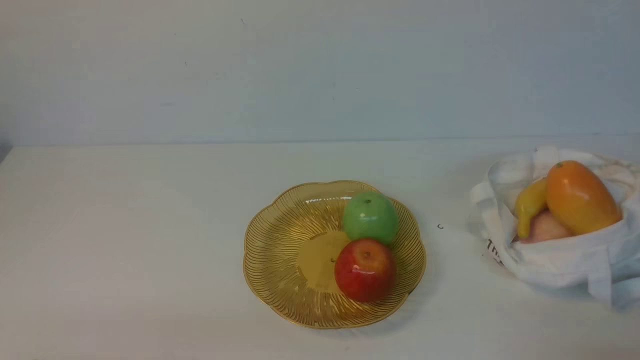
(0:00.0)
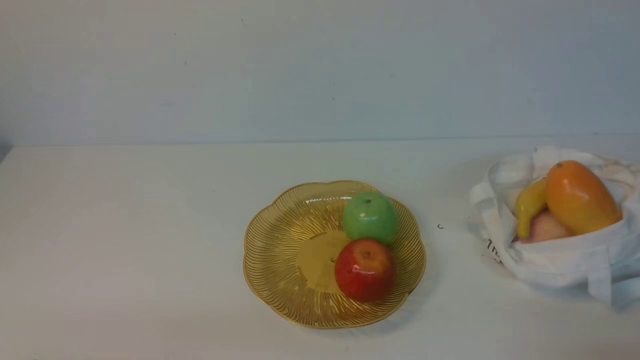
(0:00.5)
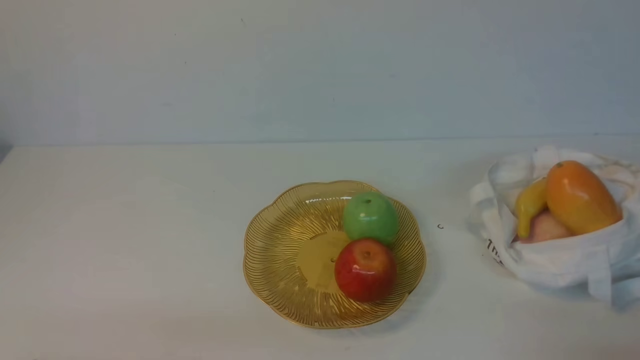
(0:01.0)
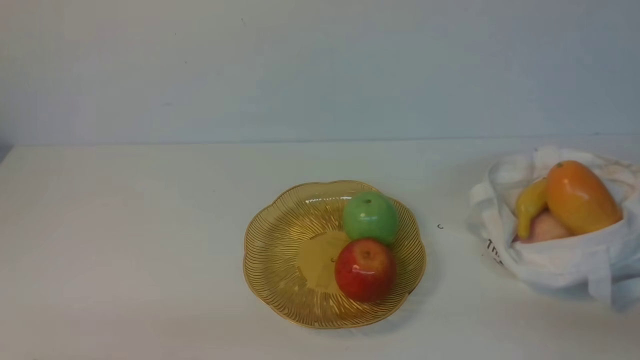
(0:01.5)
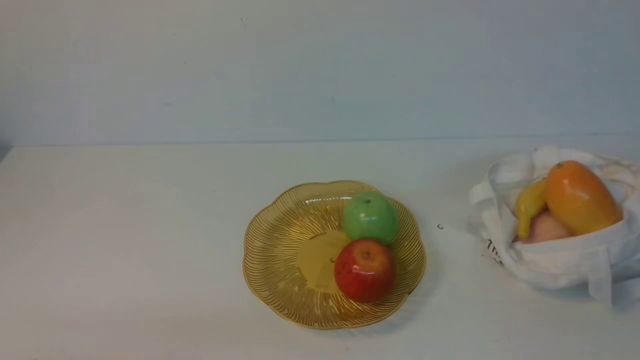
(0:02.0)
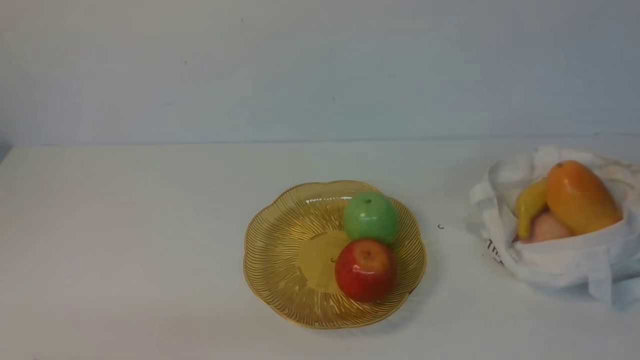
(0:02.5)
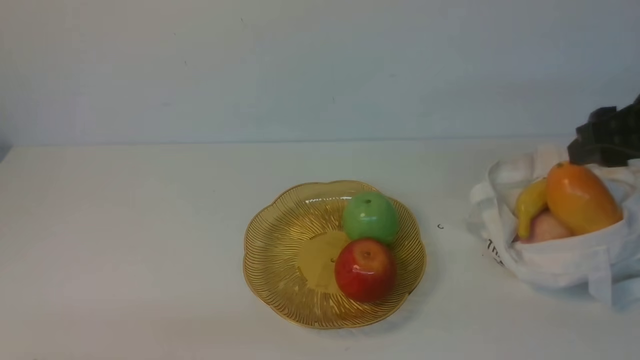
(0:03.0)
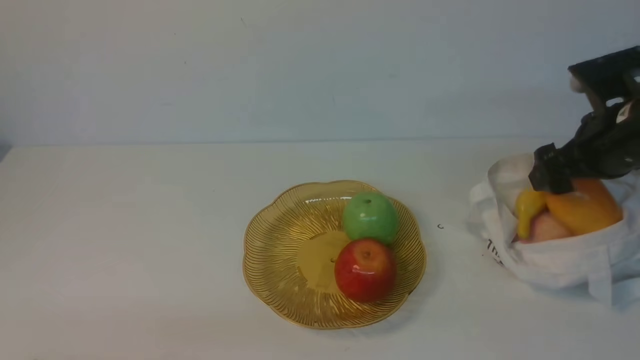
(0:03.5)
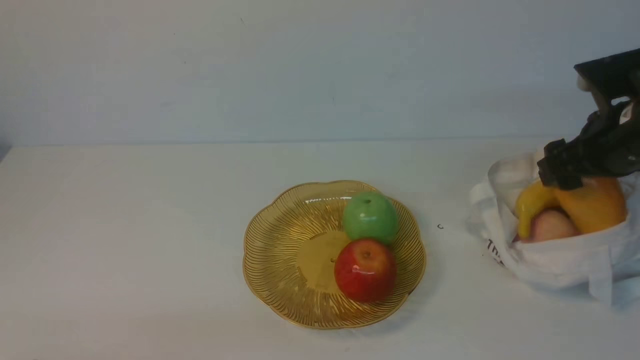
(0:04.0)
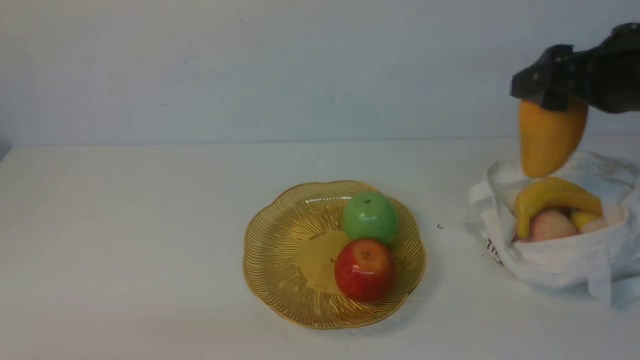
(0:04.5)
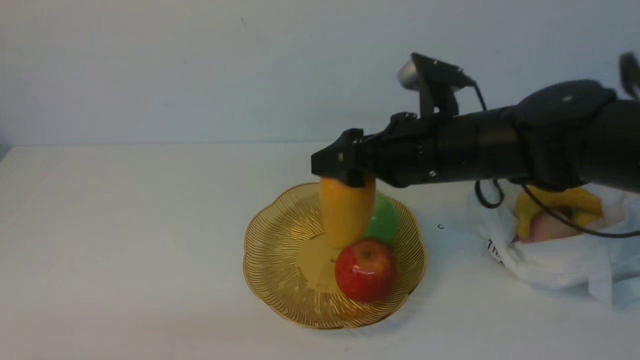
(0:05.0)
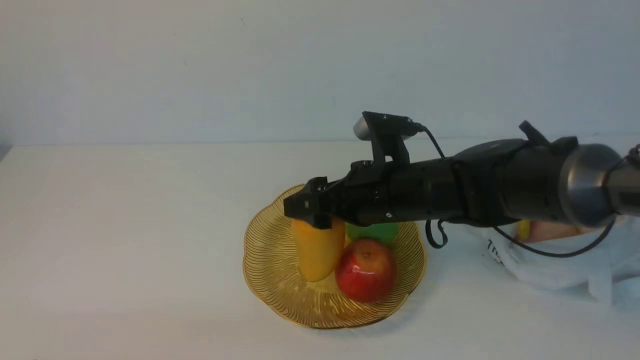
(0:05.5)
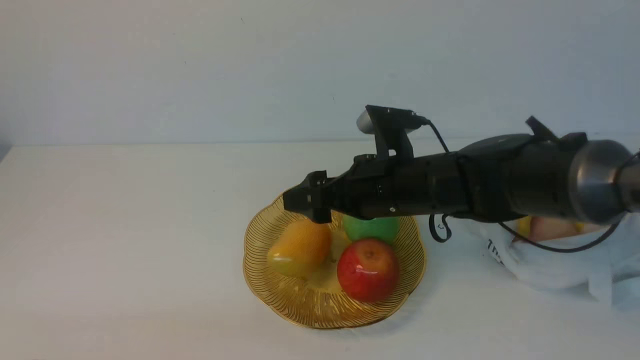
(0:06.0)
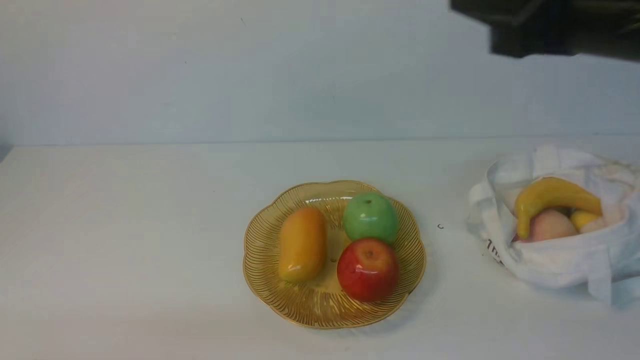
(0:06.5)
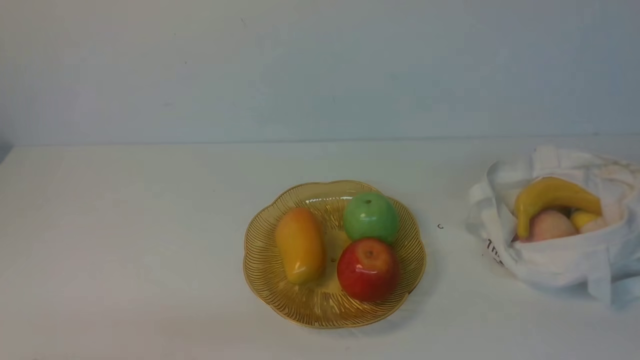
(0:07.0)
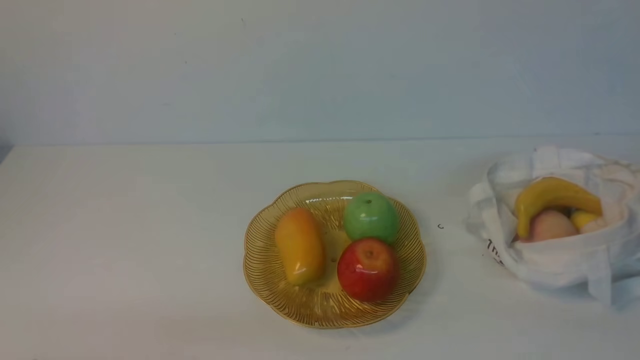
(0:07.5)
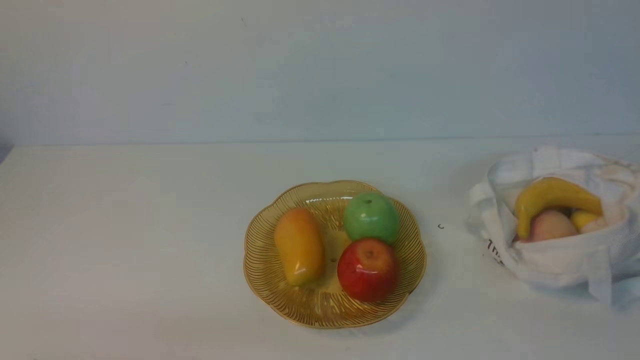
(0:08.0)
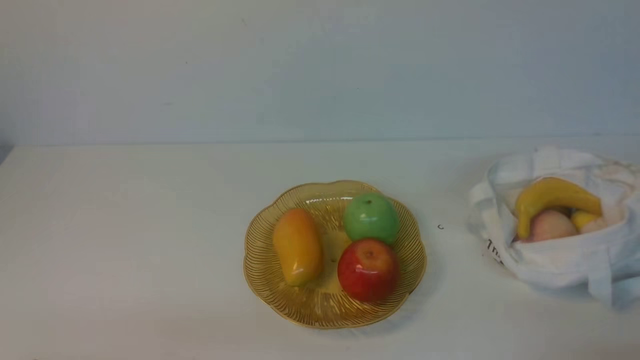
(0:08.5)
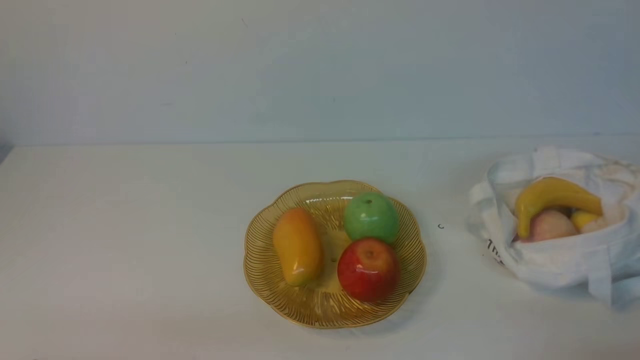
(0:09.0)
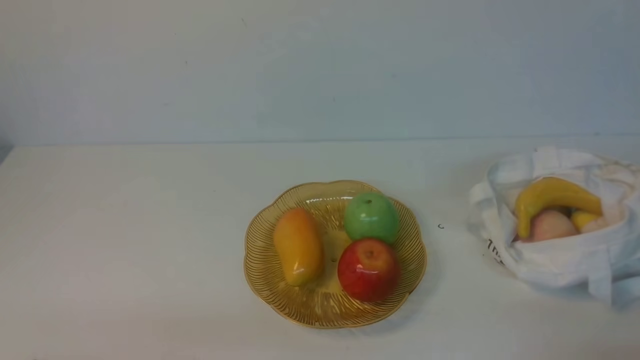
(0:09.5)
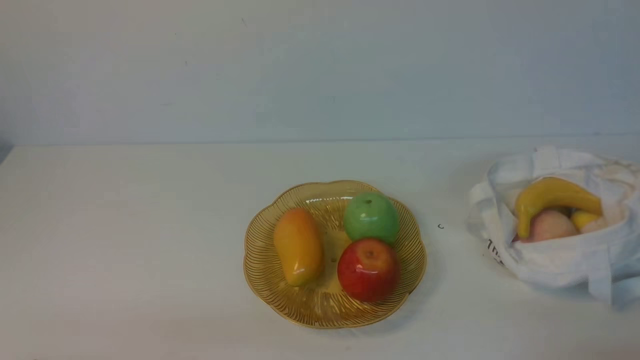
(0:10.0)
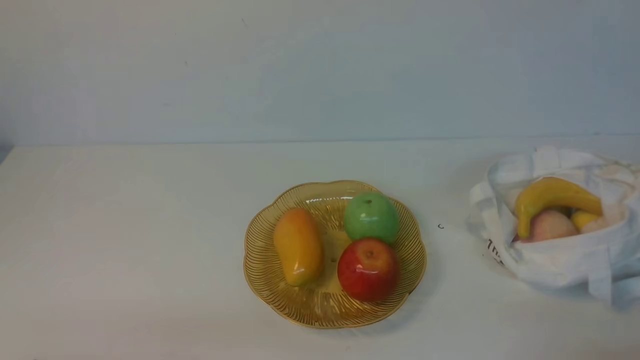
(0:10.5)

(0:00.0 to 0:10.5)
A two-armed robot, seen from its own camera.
Step, 0:00.0 - 0:03.5: use the right arm to grab a mango from the bag.
Step, 0:04.5 - 0:05.5: use the right arm to put the mango into the empty plate on the left.
0:02.0 - 0:04.0: The right gripper is displaced forward by about 25 cm, and opens its fingers.
0:04.0 - 0:06.5: The right gripper shifts approximately 20 cm upward, backward and to the left, and closes up.
0:06.5 - 0:08.5: The right gripper goes roughly 35 cm downward, backward and to the right.
0:08.5 - 0:10.5: Both grippers stay about where they are.

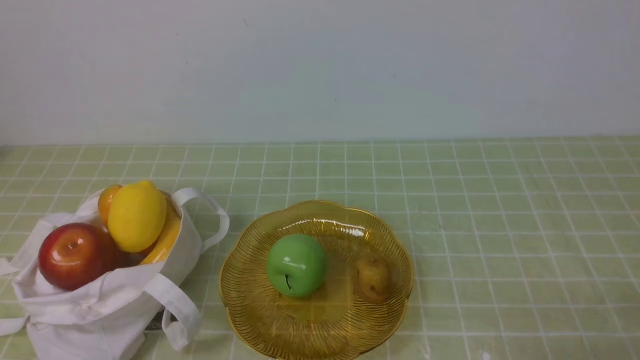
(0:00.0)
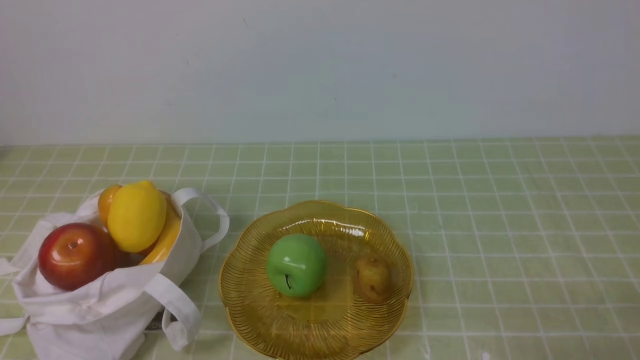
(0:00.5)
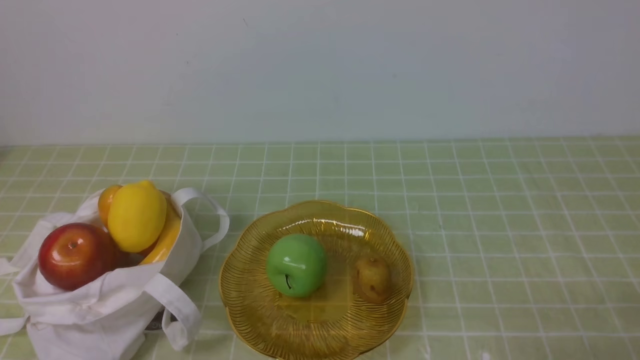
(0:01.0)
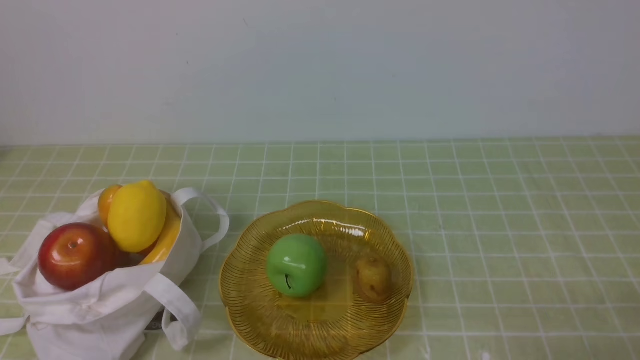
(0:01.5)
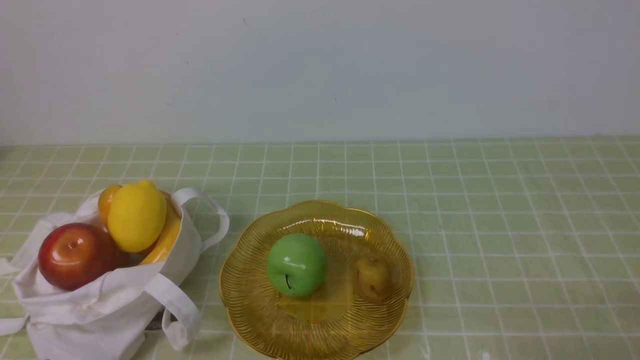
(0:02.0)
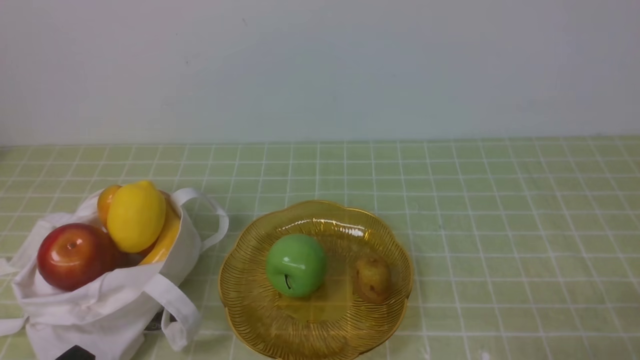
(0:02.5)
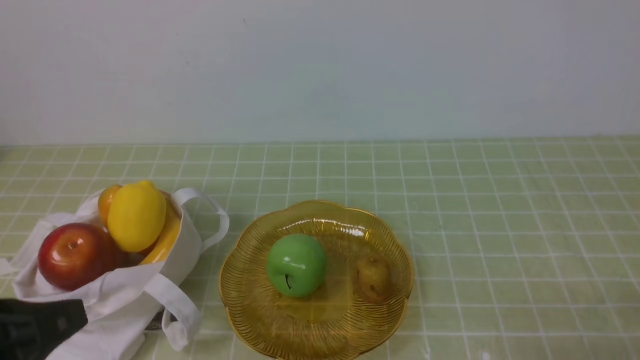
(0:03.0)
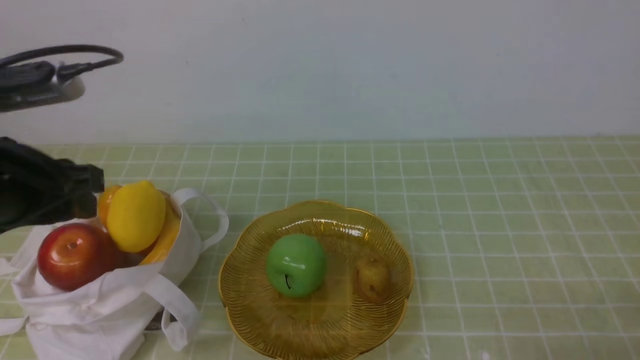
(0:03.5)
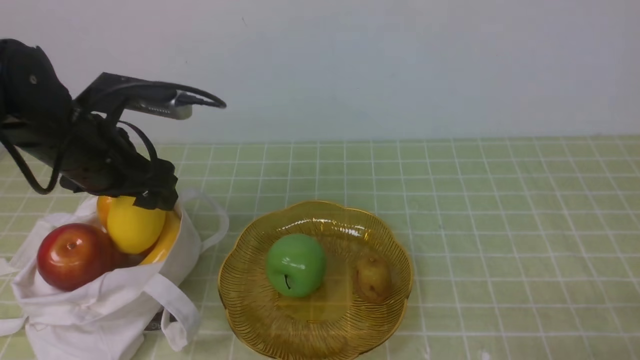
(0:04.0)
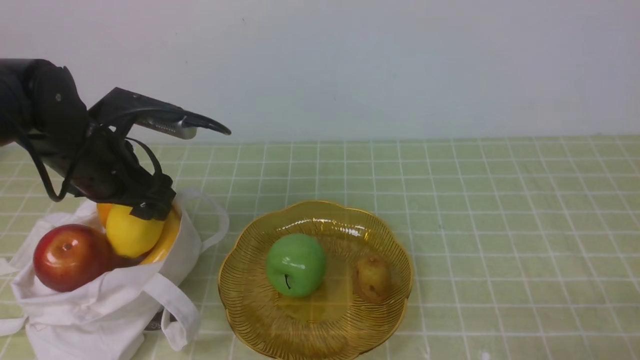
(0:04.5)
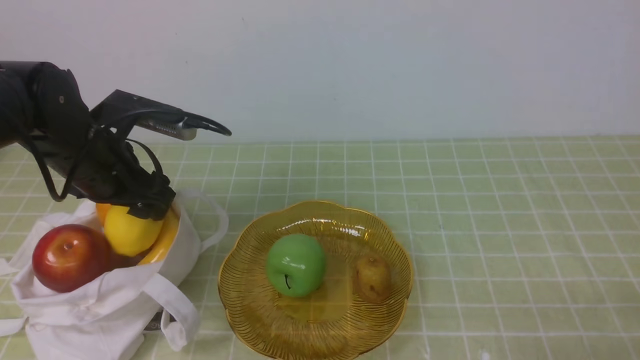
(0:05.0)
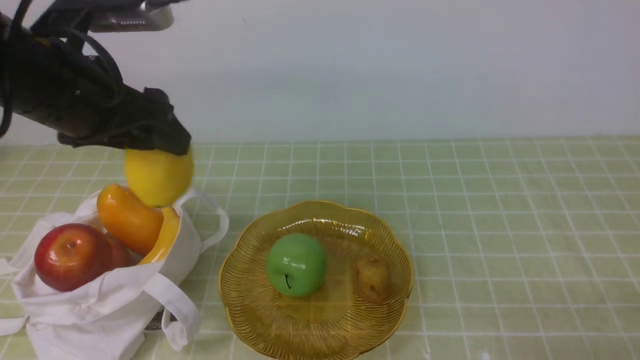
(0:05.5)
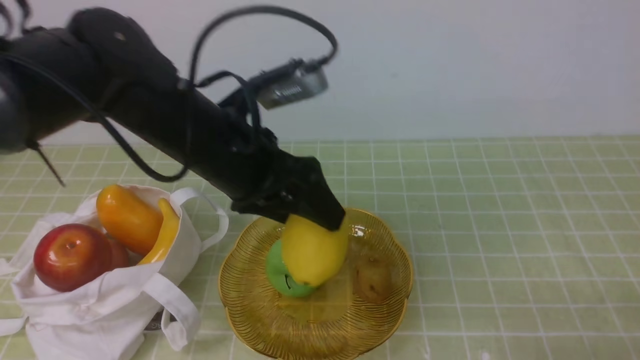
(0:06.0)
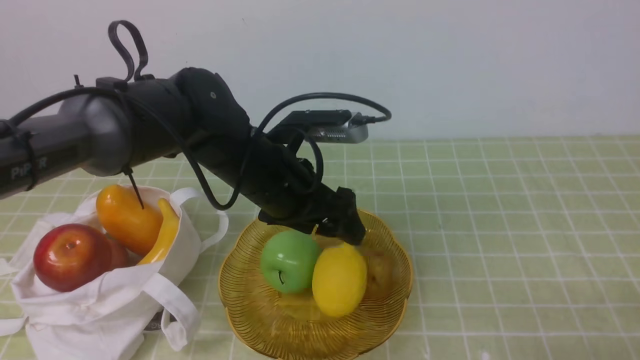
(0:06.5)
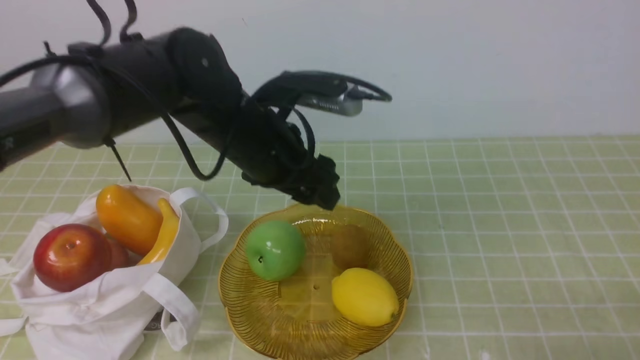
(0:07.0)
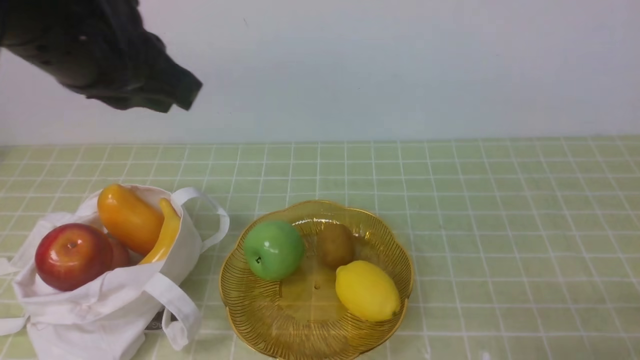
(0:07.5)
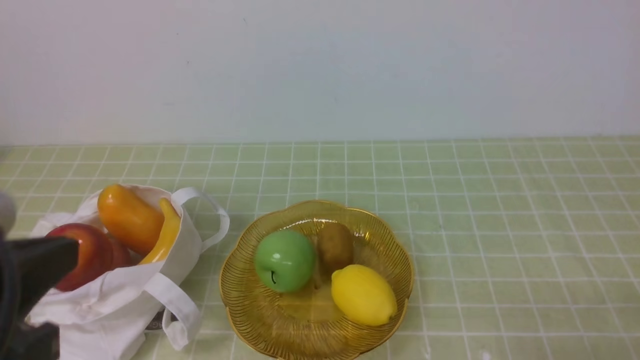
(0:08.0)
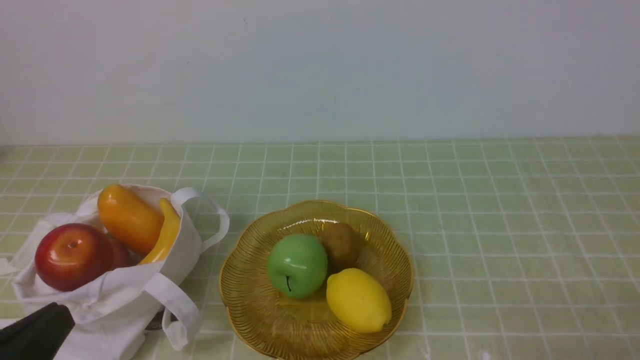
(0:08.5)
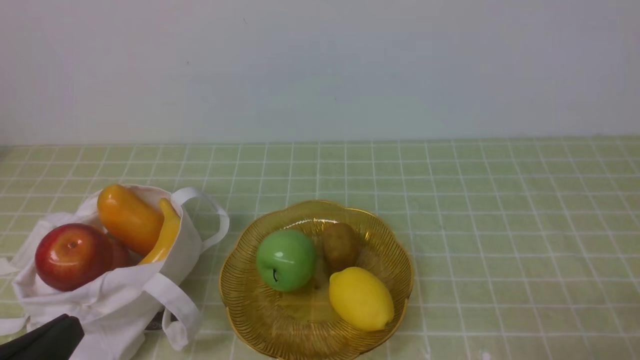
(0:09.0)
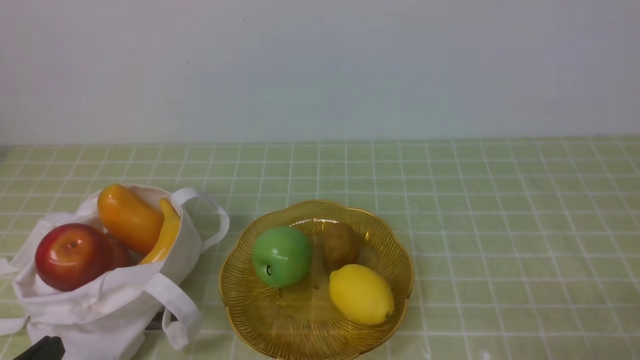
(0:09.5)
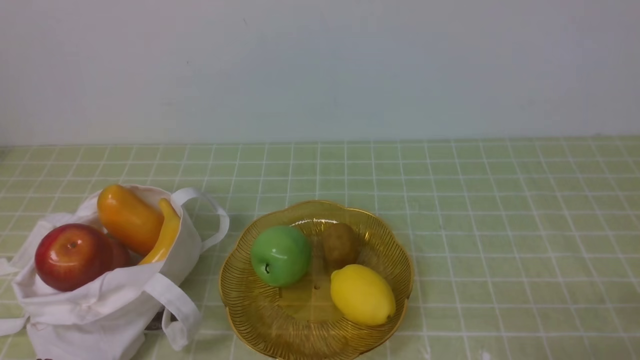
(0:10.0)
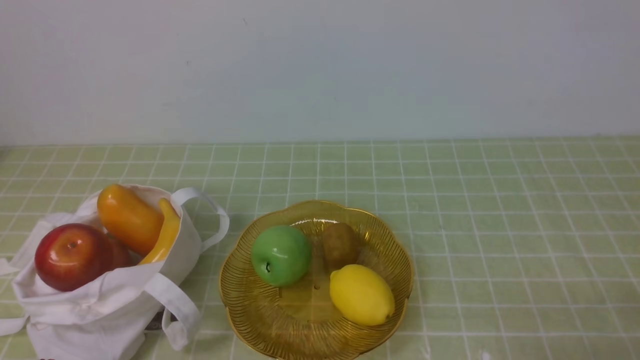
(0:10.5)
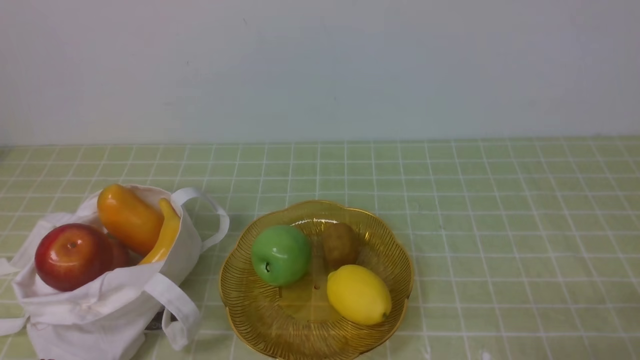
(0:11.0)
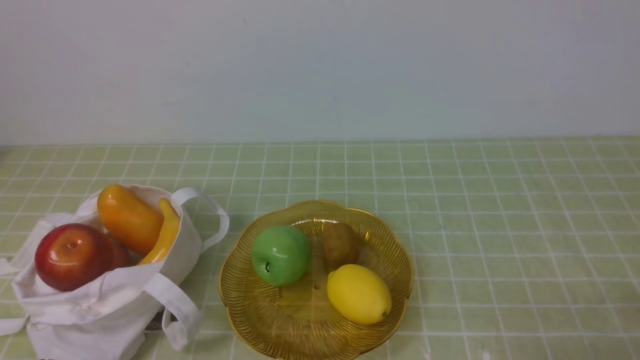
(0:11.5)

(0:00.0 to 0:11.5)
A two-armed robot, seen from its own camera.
Step, 0:00.0 - 0:05.0: use the left arm to grab a lemon from the bag.
Step, 0:05.5 - 0:06.5: use the left arm to put the lemon into the empty plate on the right.
0:02.0 - 0:04.0: The left gripper heads forward and upward, covering about 30 cm, and opens up.
0:04.0 - 0:06.0: The left gripper shifts roughly 10 cm to the right.
0:06.0 - 0:07.5: The left gripper travels upward by approximately 10 cm, and closes.
0:07.5 - 0:09.5: The left gripper travels downward, backward and to the left by approximately 35 cm.
